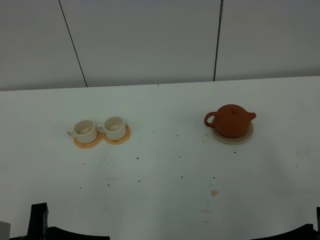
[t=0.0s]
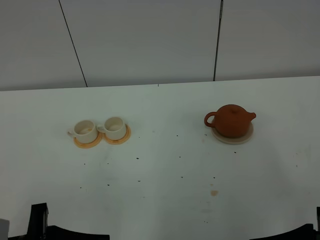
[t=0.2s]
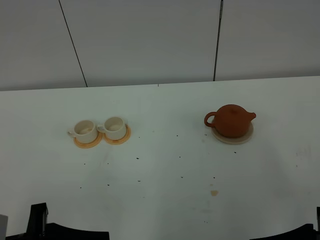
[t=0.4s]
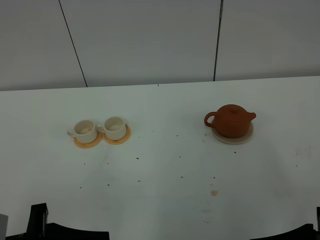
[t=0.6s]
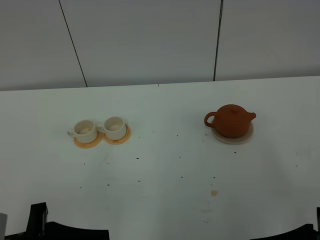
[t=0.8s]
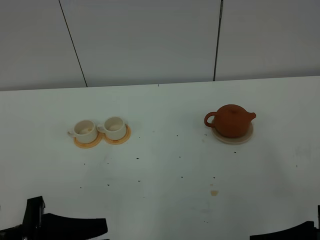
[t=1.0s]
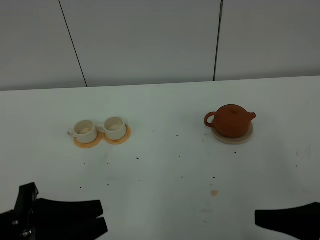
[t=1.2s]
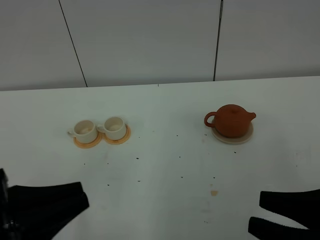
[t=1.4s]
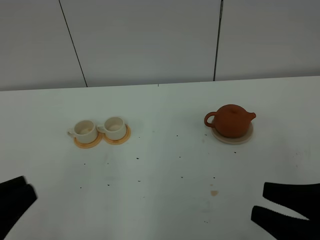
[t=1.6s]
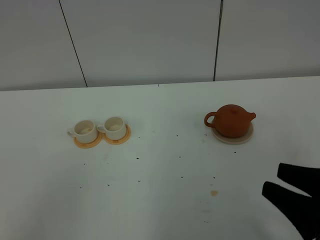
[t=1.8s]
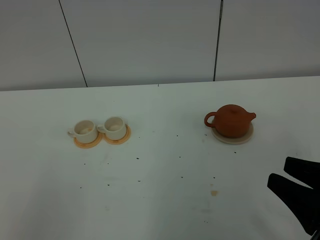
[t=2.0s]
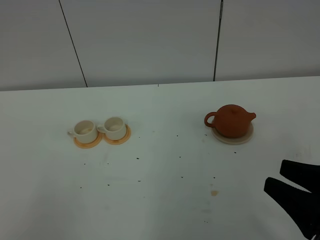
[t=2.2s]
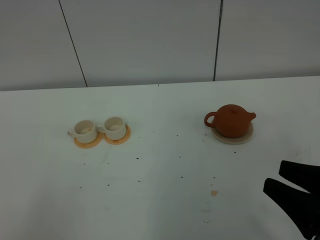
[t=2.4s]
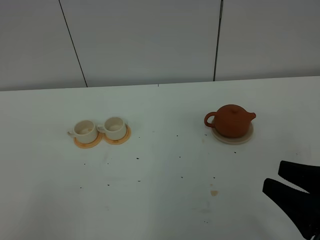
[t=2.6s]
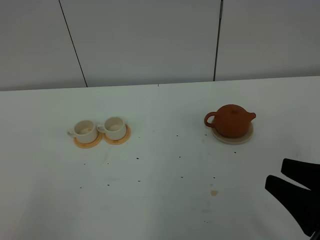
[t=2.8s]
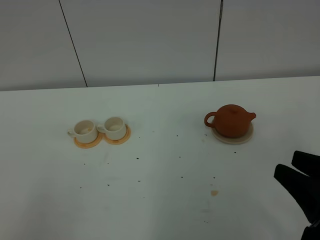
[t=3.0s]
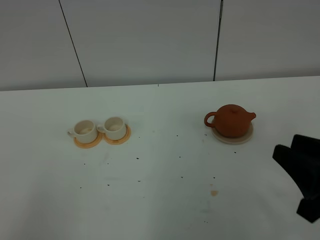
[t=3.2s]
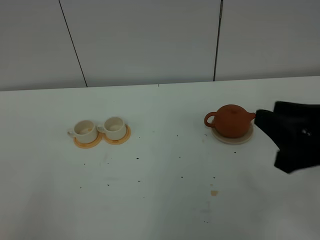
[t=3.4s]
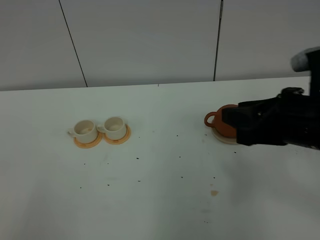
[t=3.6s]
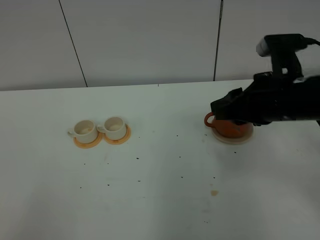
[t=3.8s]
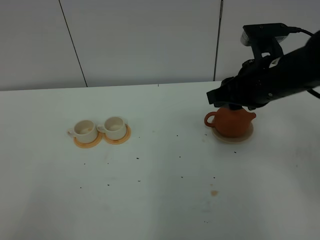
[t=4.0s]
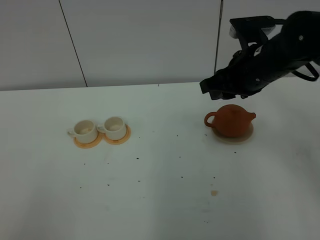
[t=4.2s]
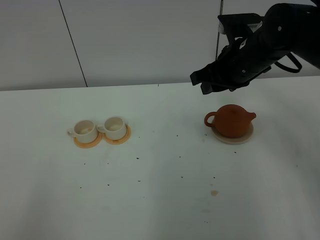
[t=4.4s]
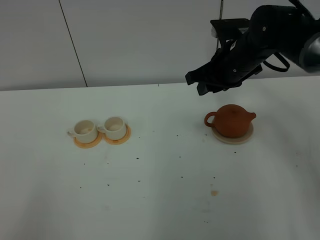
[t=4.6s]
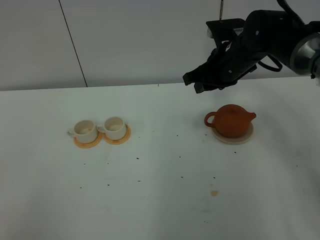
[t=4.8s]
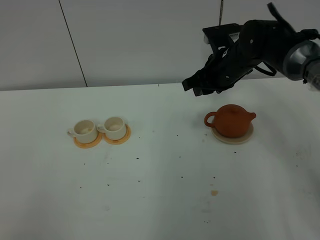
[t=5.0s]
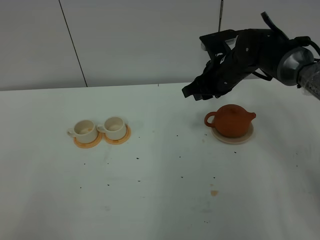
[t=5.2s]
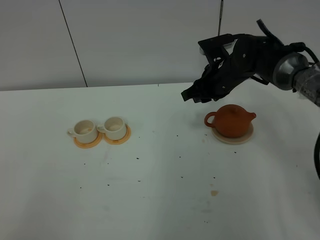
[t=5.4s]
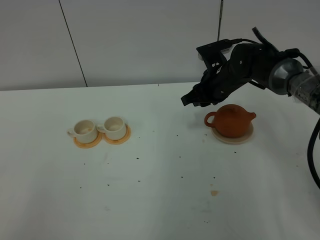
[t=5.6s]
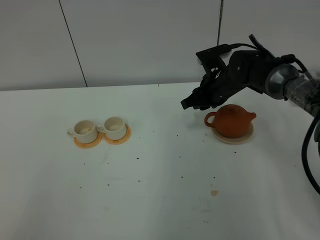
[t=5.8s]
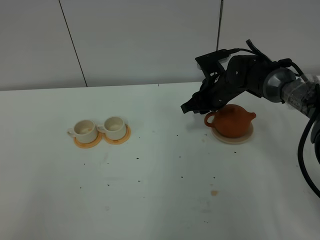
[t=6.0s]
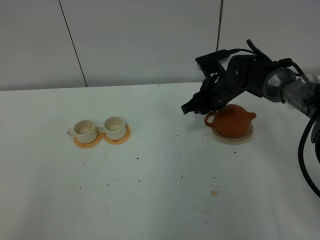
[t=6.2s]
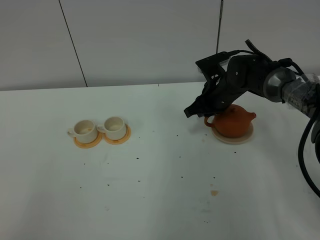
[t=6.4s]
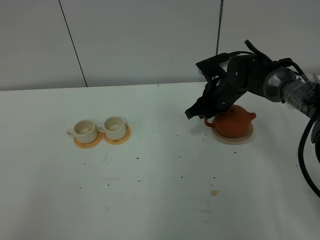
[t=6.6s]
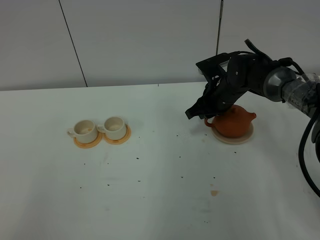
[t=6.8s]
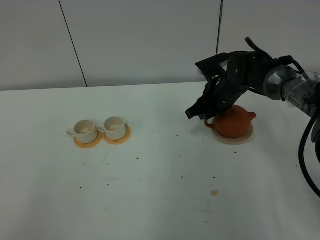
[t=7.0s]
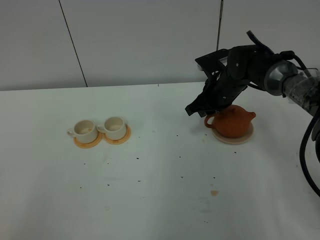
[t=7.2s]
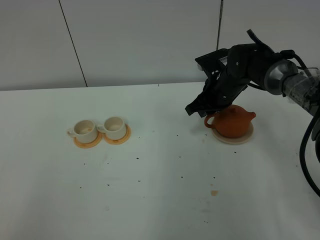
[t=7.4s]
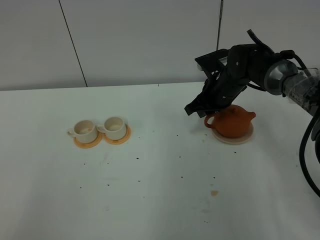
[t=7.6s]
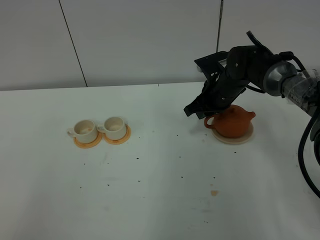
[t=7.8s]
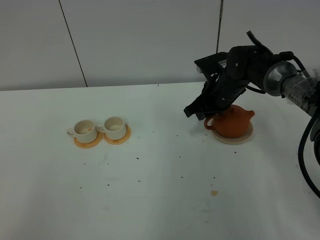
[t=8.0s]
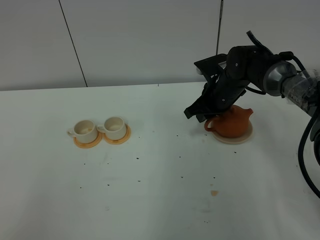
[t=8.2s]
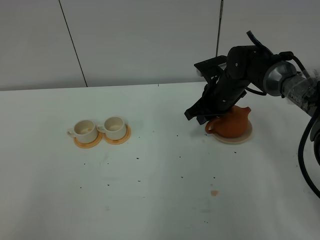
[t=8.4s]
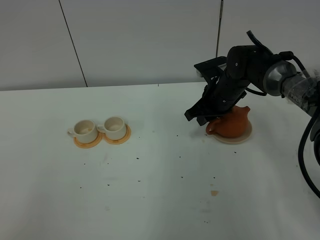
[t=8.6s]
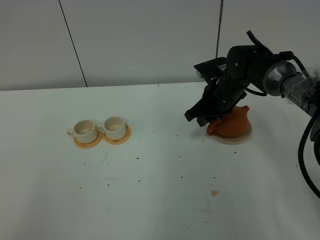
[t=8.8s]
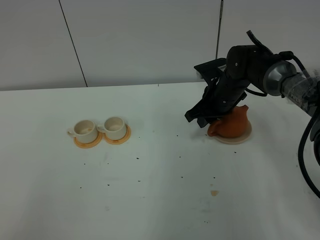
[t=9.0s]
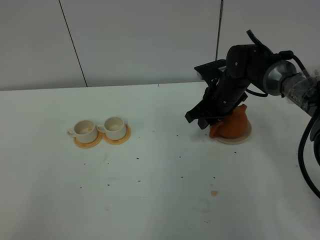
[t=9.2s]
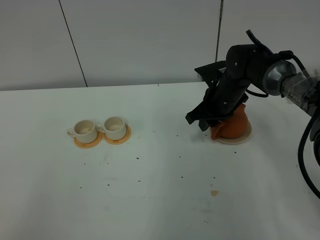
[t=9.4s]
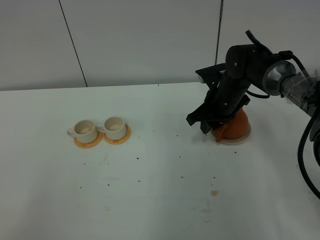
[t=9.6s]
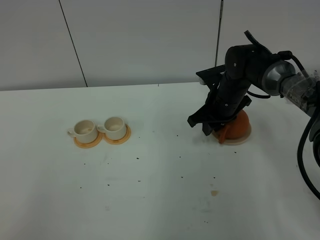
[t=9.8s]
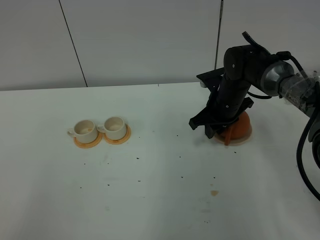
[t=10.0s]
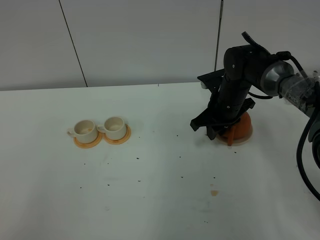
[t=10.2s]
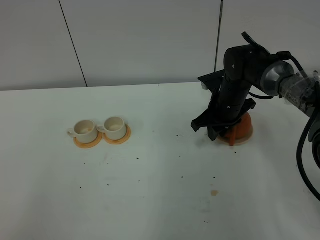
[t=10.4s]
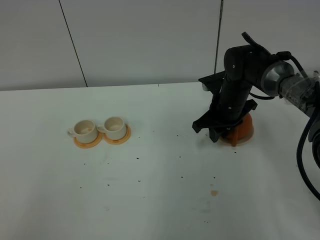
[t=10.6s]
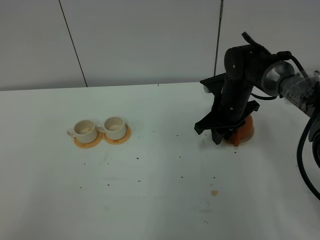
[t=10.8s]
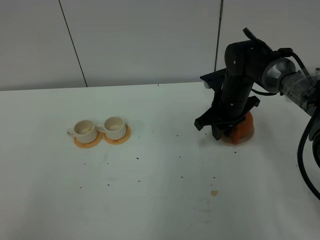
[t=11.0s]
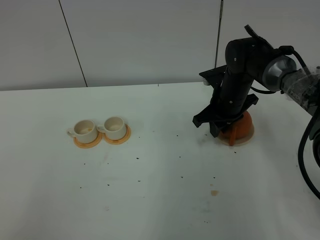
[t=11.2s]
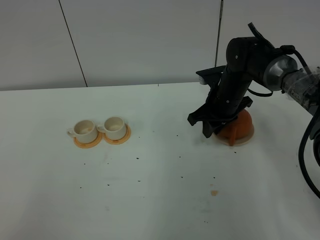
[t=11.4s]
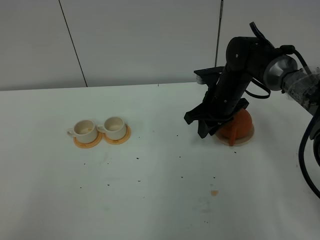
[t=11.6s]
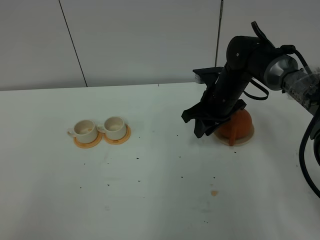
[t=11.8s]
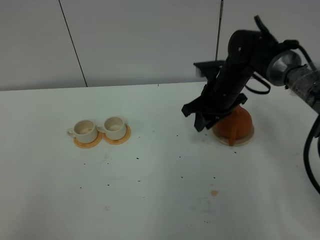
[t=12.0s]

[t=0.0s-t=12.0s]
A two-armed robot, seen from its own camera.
Task of the whole recording: grasp the brown teapot and pour the tea into the two white teacups one by one, put the brown teapot back in its original place.
t=0.0s to t=1.6s: The left gripper heads upward, covering approximately 10 cm, and closes.
t=1.6s to t=3.0s: The left gripper is displaced backward and to the left by about 10 cm.
t=3.0s to t=4.4s: The left gripper opens its fingers; the right gripper goes roughly 30 cm forward.
t=4.4s to t=6.0s: The right gripper goes approximately 15 cm downward and forward.
t=6.0s to t=9.0s: The grippers stay close to where they were, moving slightly.
t=9.0s to t=12.0s: The grippers make only small movements.

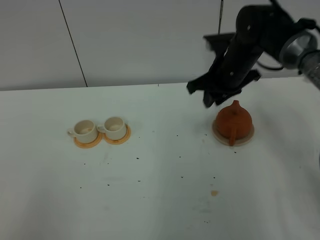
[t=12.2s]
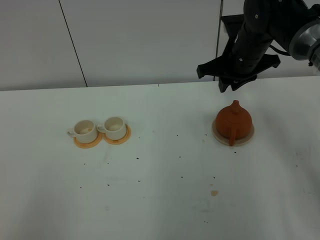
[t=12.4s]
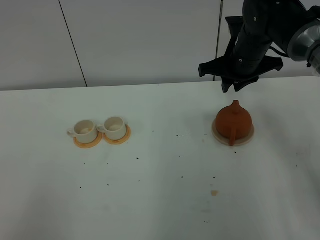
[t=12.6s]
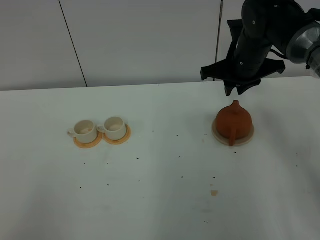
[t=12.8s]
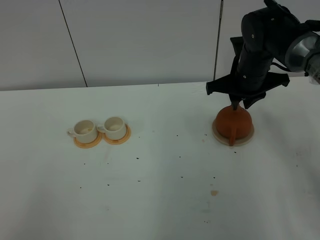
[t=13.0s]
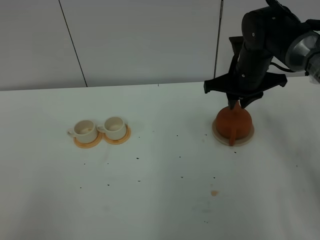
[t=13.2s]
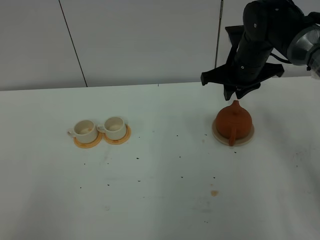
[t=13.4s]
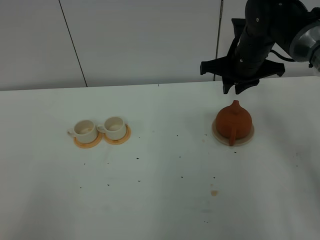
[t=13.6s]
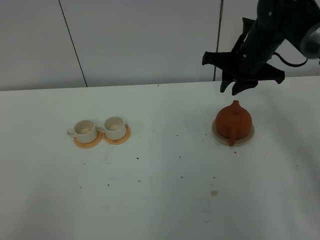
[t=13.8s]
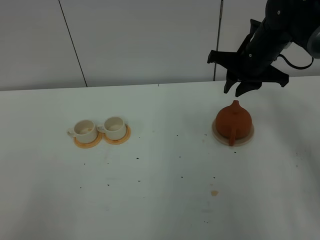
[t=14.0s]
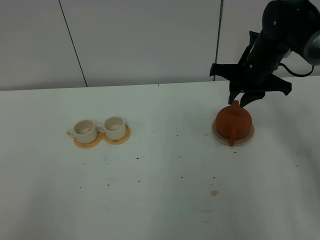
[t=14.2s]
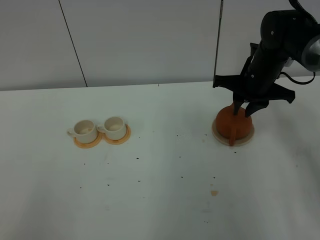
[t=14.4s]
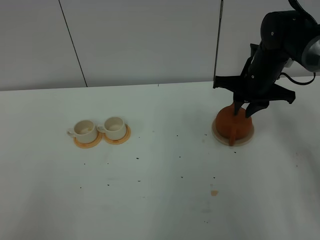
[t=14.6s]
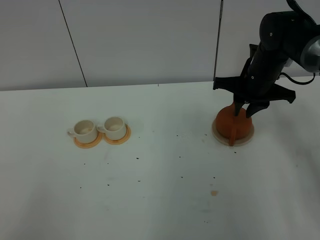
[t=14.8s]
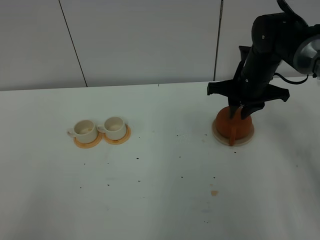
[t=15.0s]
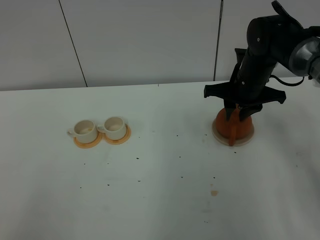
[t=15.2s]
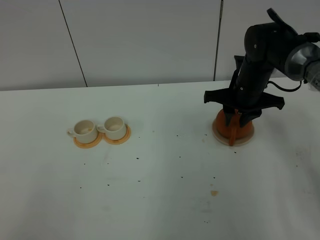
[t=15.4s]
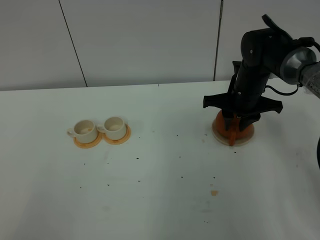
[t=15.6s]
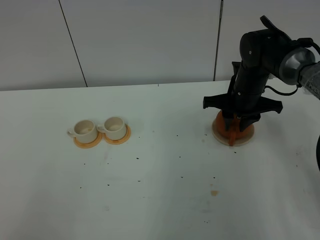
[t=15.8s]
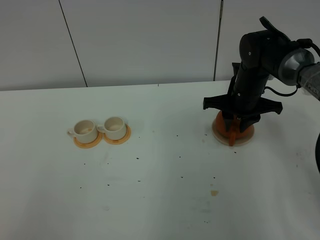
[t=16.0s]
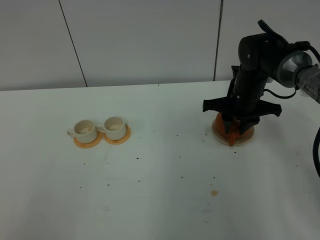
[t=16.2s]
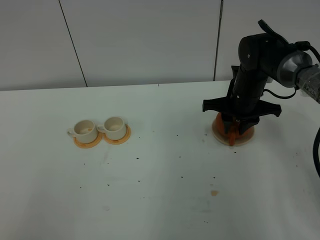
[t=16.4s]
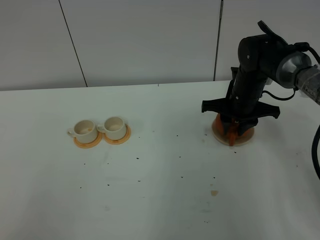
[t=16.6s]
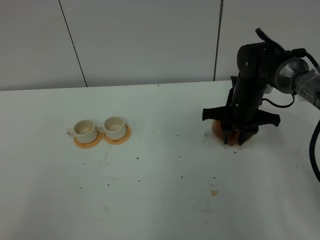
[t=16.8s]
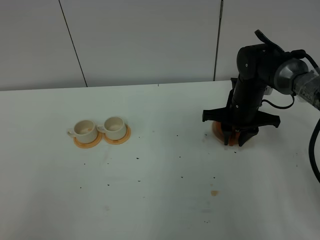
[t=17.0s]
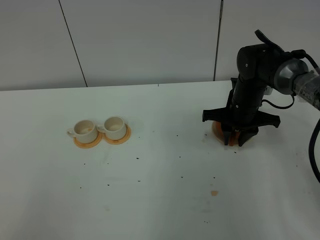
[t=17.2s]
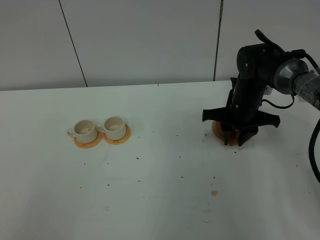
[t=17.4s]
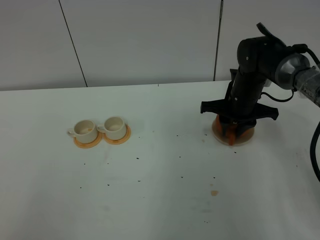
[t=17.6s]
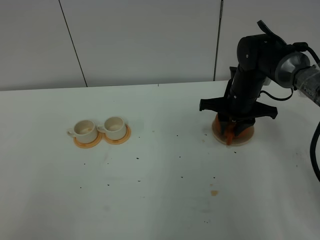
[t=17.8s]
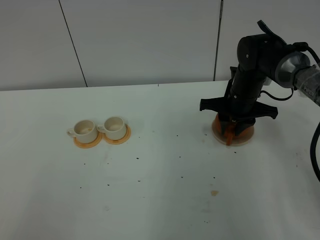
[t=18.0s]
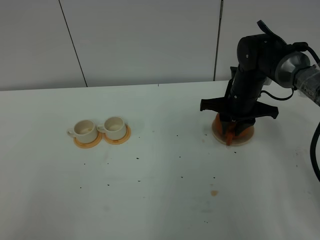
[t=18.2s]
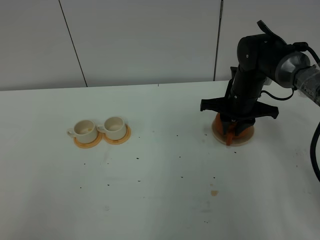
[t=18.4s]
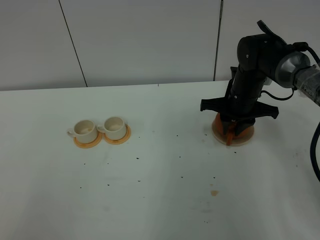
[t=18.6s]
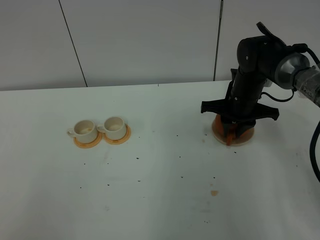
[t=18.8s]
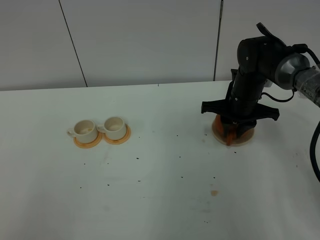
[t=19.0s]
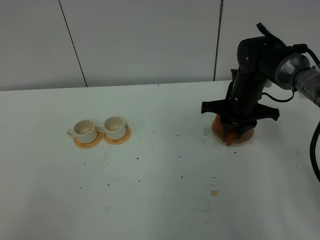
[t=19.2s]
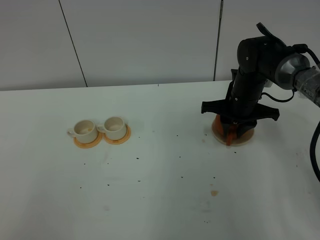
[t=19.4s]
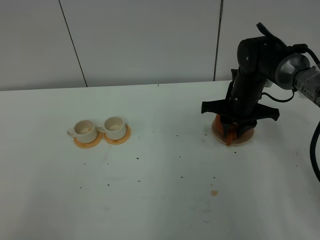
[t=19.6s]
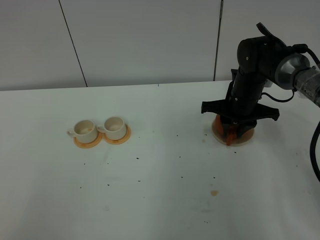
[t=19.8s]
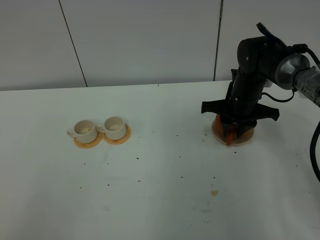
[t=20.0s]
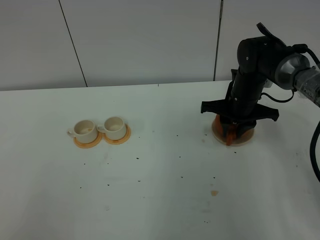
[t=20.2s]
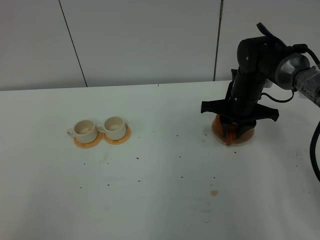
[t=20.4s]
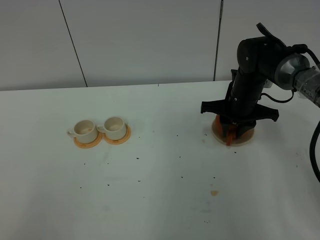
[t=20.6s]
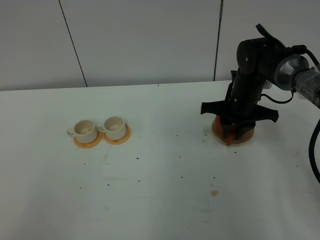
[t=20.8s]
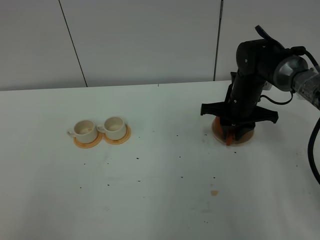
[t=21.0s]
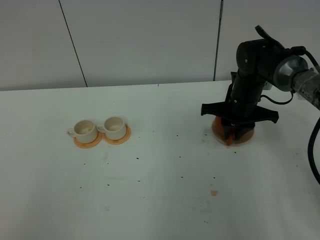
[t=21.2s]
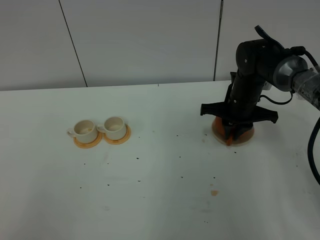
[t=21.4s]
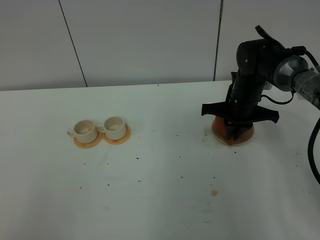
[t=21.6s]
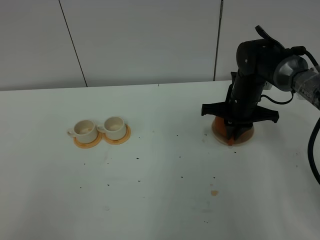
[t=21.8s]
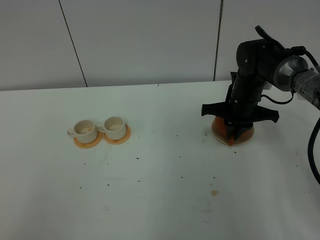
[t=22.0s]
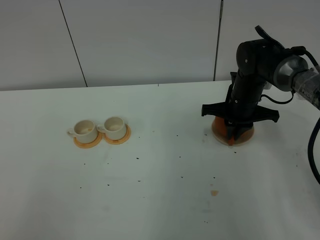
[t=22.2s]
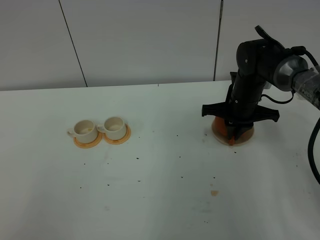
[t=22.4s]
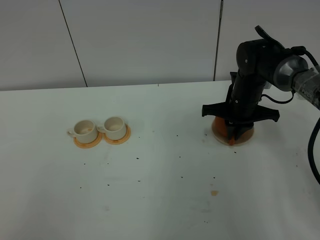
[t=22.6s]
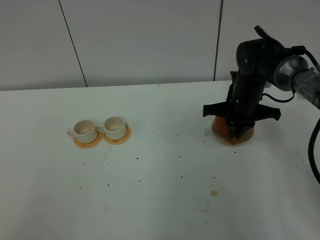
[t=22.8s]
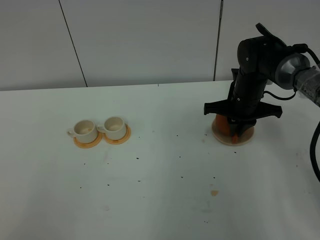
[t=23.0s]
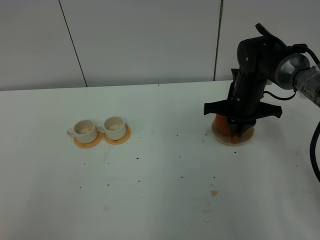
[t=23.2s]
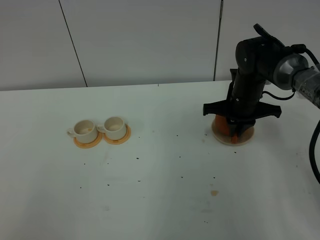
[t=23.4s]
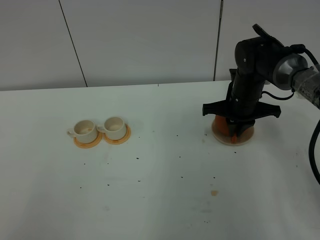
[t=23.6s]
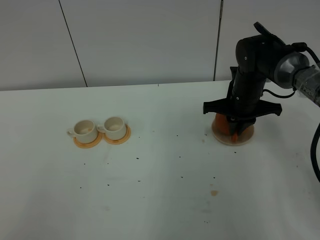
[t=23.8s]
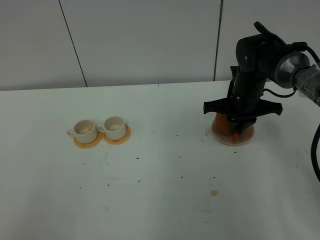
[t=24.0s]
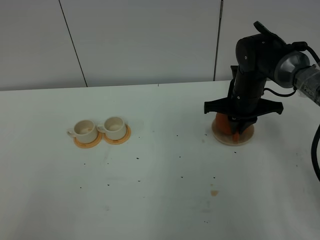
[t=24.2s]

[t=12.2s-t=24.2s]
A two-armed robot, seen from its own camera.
Task of the whole recording: grasp the brown teapot and pour the tea into the two white teacups one by one, put the brown teapot back in its original place.
t=13.8s to t=15.2s: The right gripper heads downward, covering about 5 cm.
t=15.2s to t=18.2s: The grippers move only a little.
t=18.2s to t=21.2s: Neither gripper changes place.
t=22.6s to t=24.2s: There are only small adjustments of the grippers.
